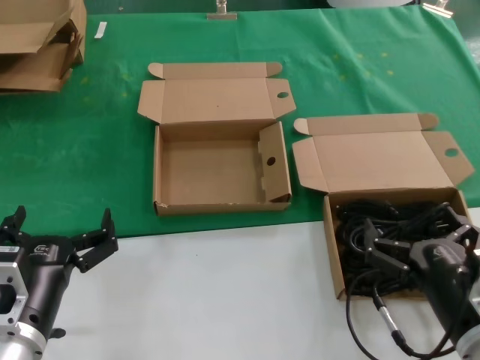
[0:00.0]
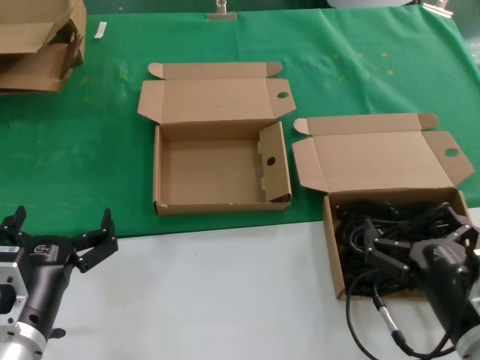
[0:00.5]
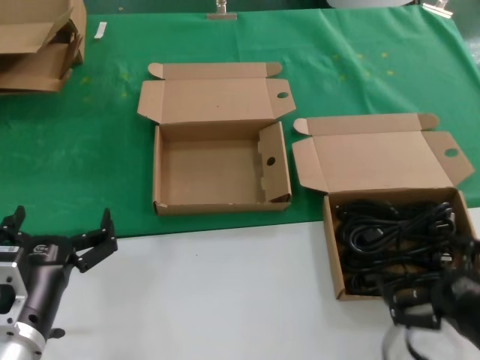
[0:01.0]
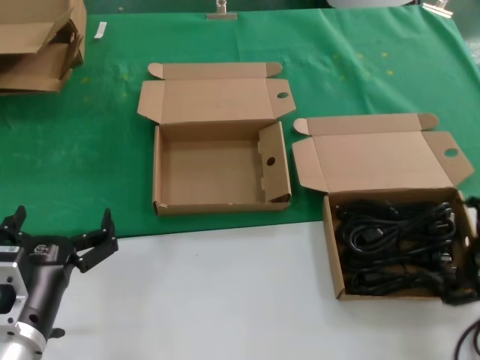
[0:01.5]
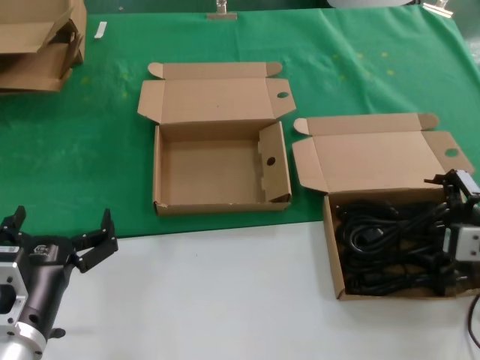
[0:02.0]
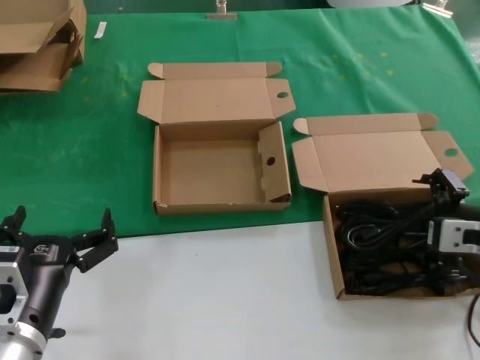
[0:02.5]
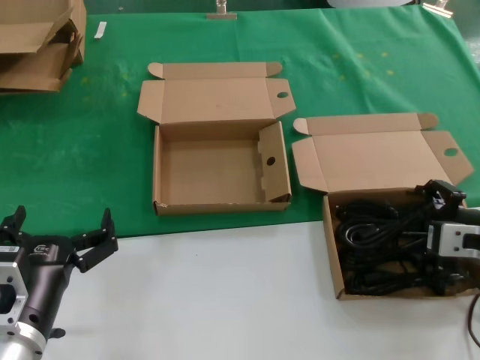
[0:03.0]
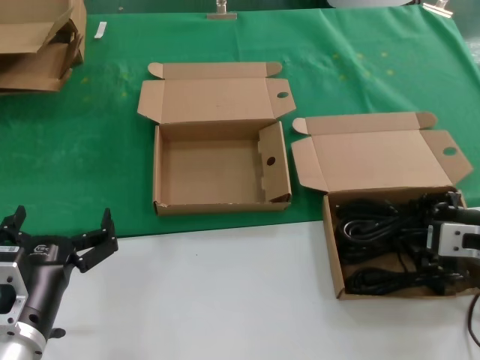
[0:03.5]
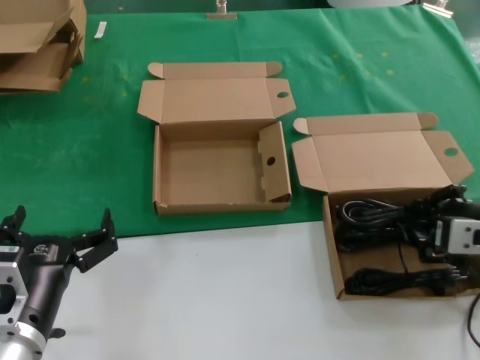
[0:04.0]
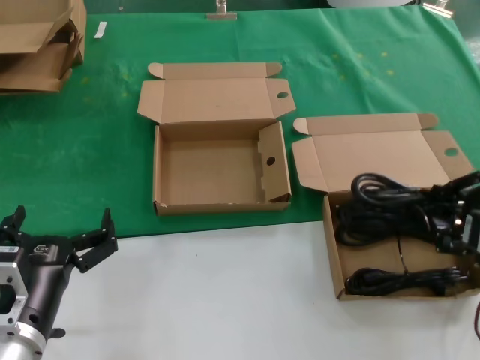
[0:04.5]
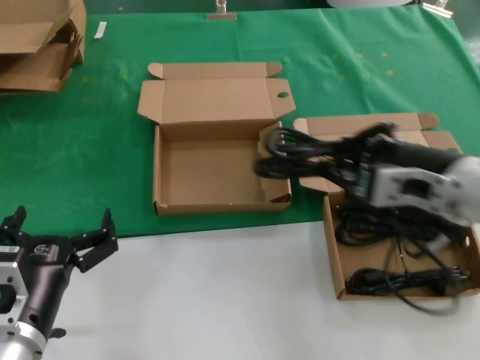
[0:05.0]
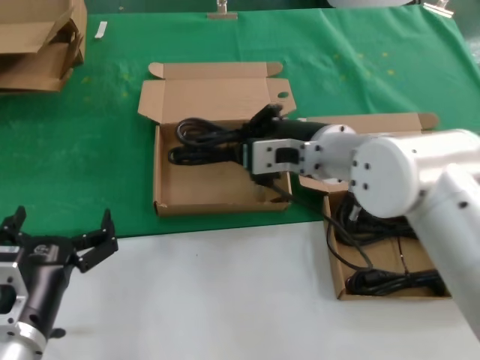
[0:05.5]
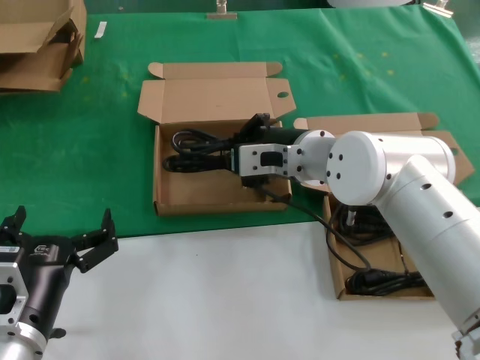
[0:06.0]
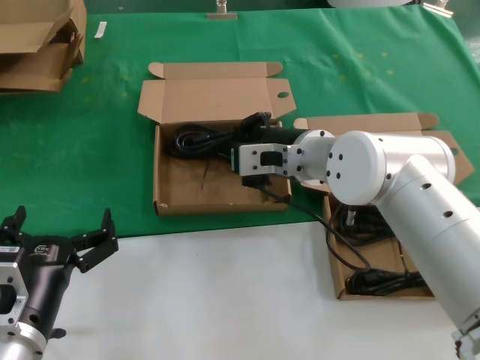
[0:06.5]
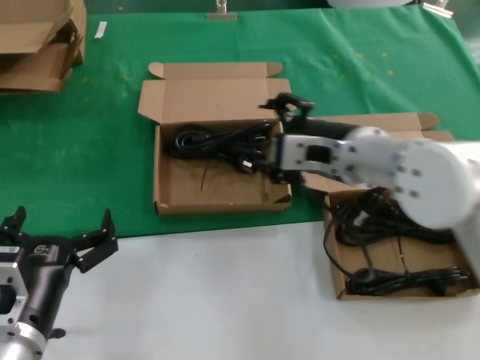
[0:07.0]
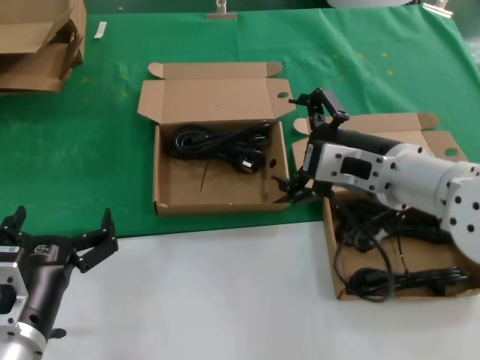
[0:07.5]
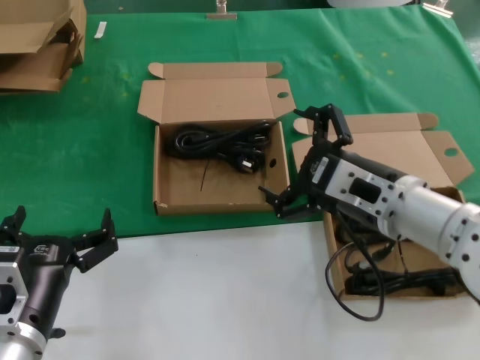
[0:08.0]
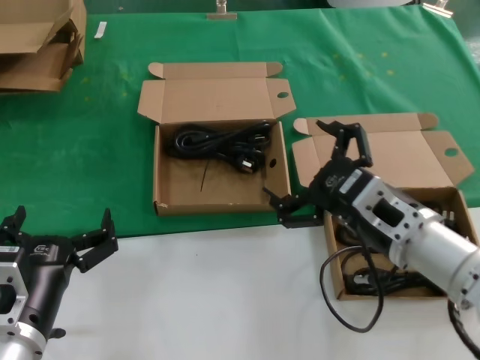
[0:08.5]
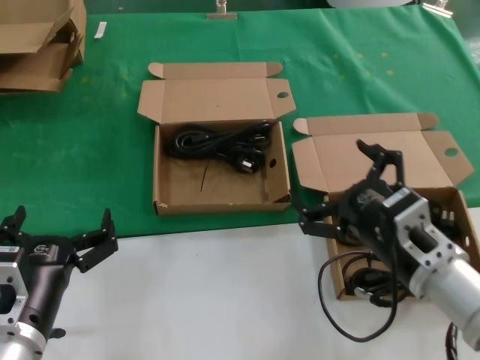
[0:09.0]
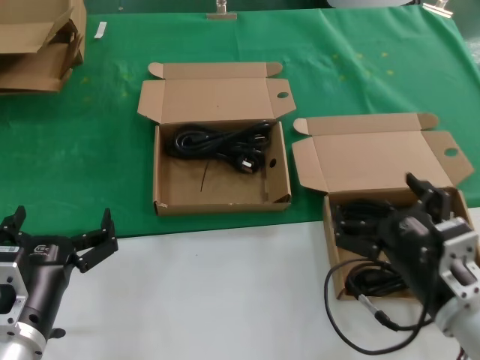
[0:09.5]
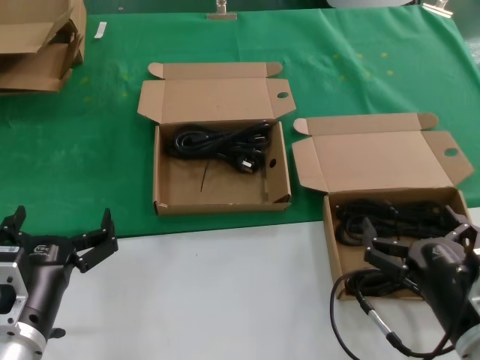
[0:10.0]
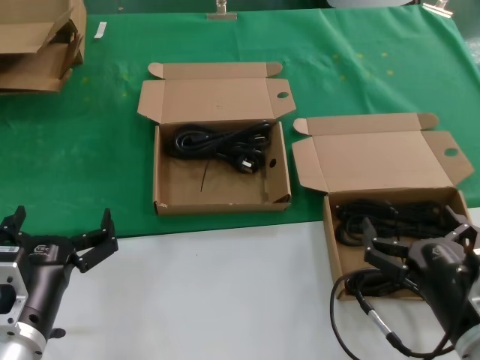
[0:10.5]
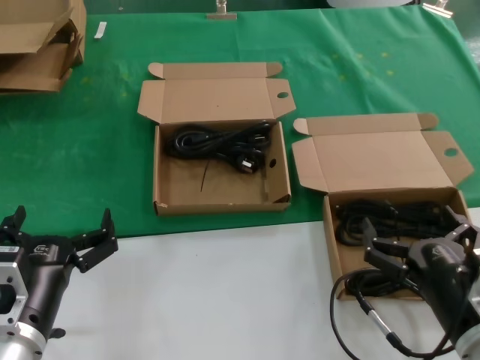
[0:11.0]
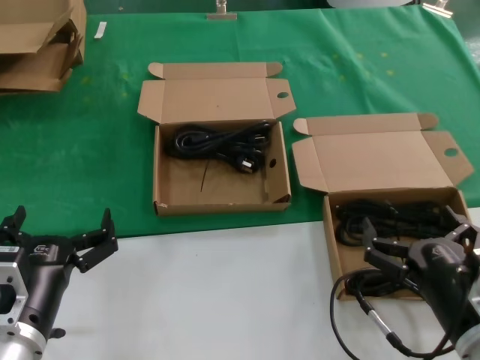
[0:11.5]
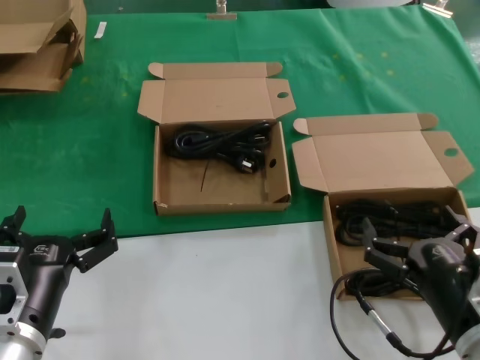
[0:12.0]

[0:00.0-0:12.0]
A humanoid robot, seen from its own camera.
Task of the whole recording: take the parts from the box containing them and put them into an empty box.
Step, 0:00.0 to 0:03.0: Grasp the data cable.
Step, 0:03.5 to 0:06.0: Place the data cable in the another box.
0:00.0 to 0:02.0: The right hand heads upward, forward and to the right, covering some 15 cm.
0:02.0 to 0:04.0: The hands stay close to where they were, moving slightly.
0:04.0 to 0:06.0: The right hand goes about 25 cm to the left and forward.
0:06.0 to 0:08.0: The right hand goes approximately 15 cm backward and to the right.
0:08.0 to 0:10.0: The right hand travels downward, backward and to the right by approximately 20 cm.
0:10.0 to 0:12.0: Both hands stay about where they are.

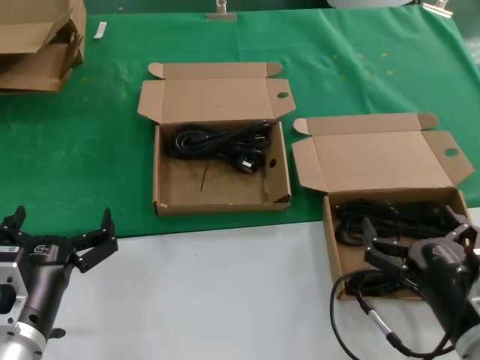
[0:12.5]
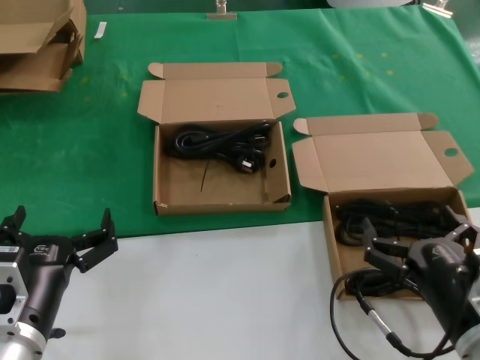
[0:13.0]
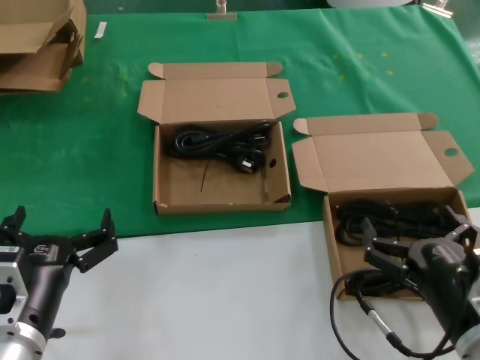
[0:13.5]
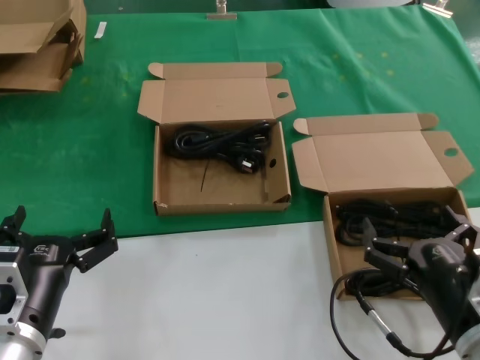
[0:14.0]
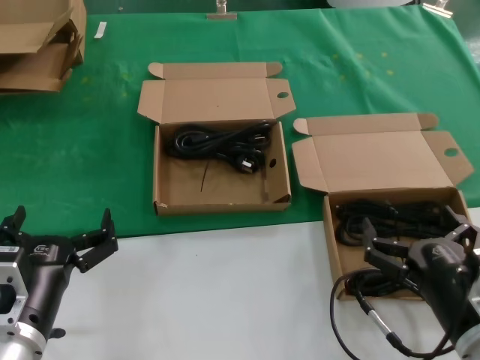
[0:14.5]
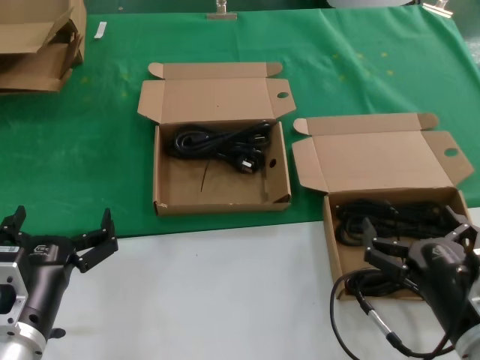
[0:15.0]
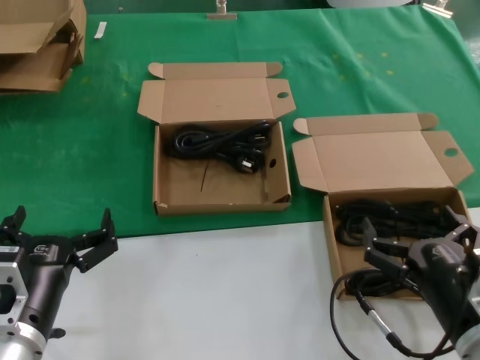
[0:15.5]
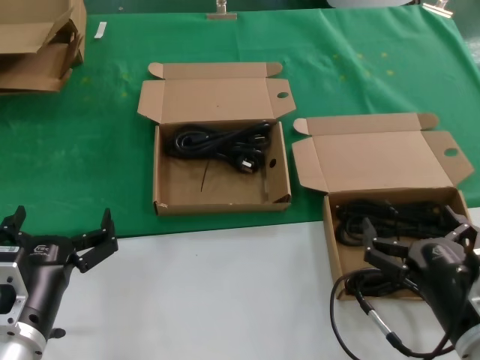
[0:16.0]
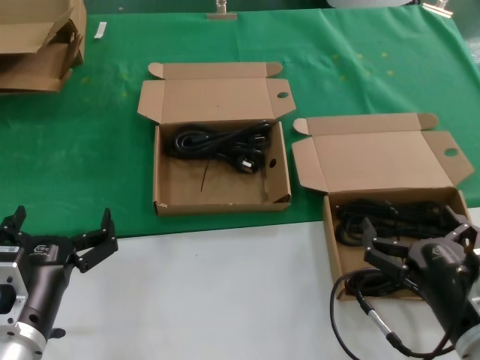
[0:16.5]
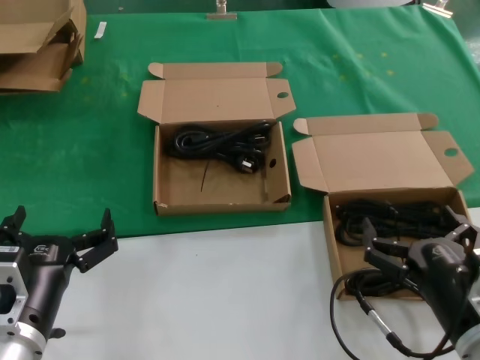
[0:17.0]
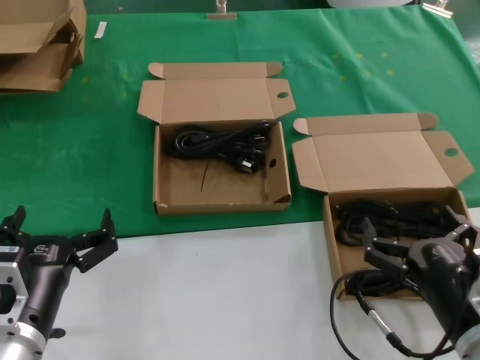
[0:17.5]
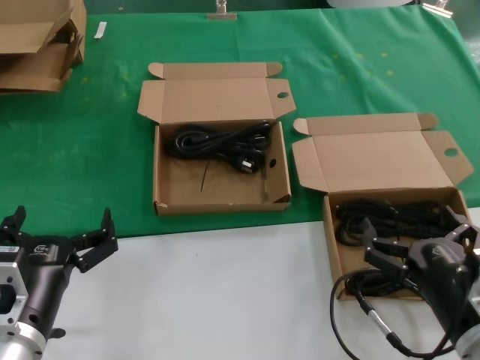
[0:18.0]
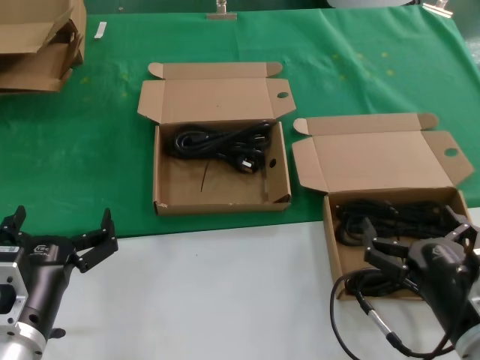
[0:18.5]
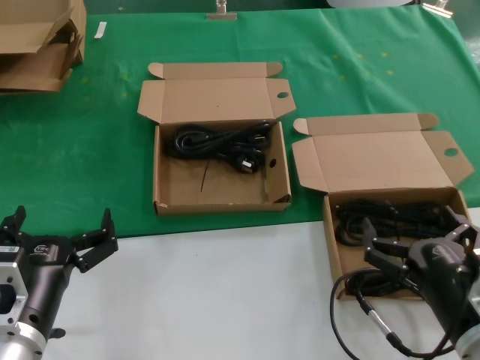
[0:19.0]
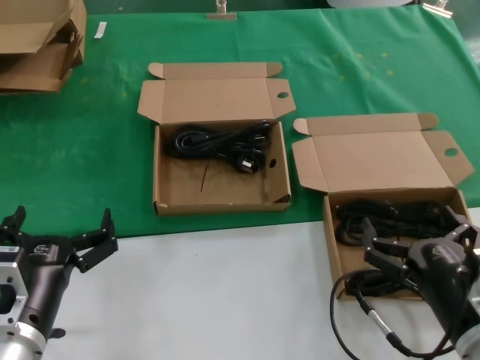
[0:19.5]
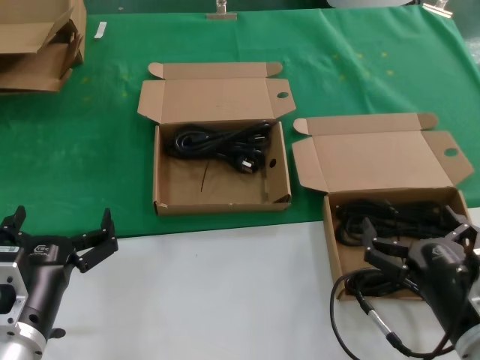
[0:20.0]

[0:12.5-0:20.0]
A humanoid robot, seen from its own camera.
Task of the whole recording: take the parts from the box containing them and put them into an empty box.
0:12.5 to 0:20.0: Both hands stay about where they are.
